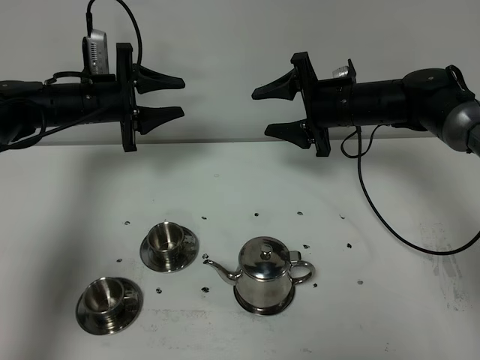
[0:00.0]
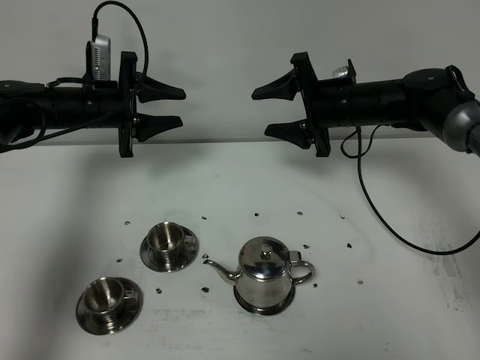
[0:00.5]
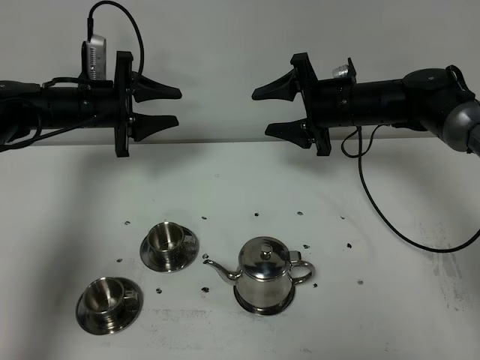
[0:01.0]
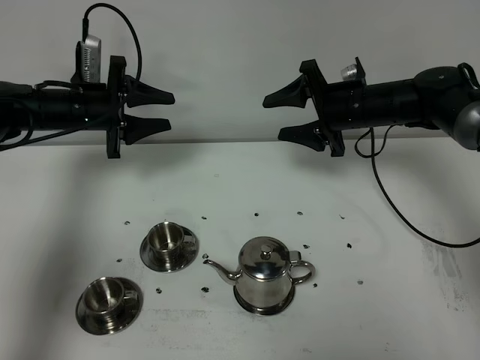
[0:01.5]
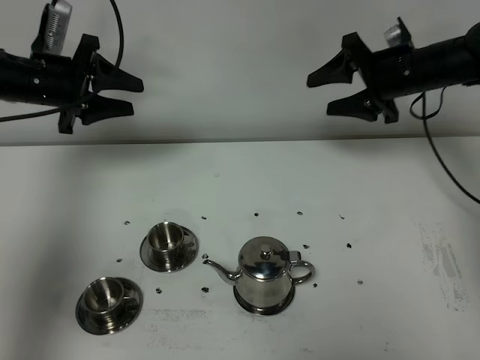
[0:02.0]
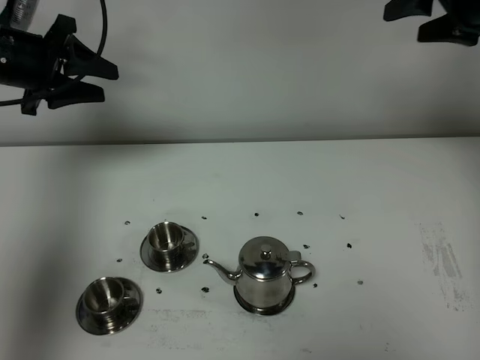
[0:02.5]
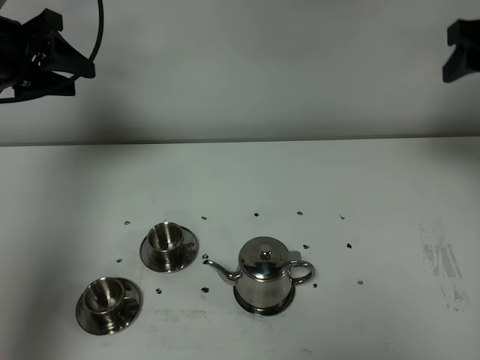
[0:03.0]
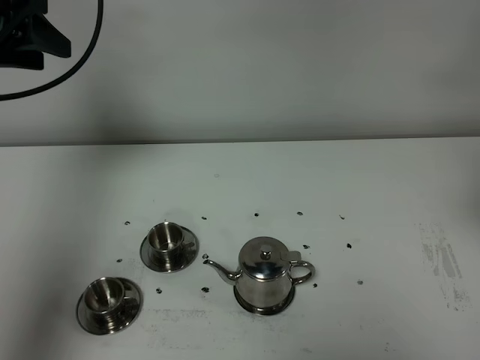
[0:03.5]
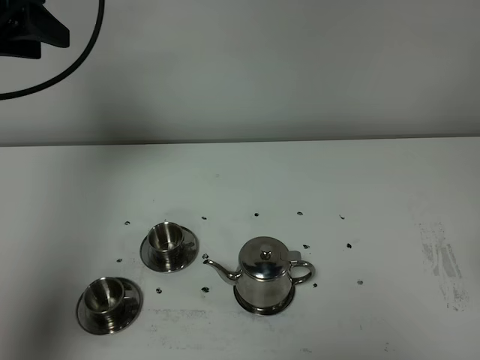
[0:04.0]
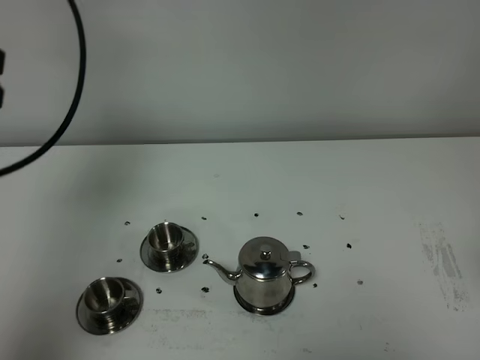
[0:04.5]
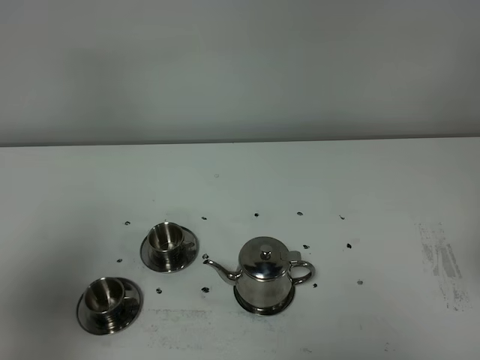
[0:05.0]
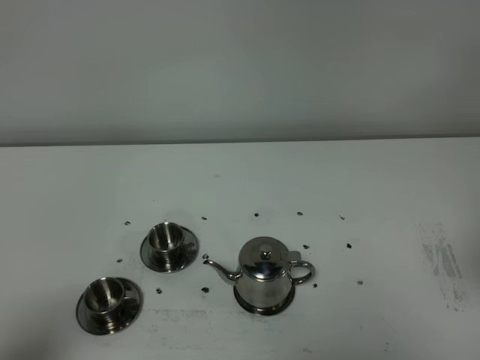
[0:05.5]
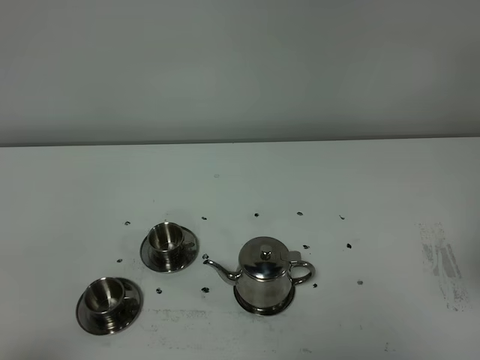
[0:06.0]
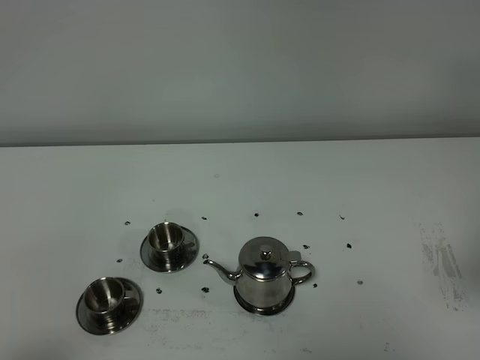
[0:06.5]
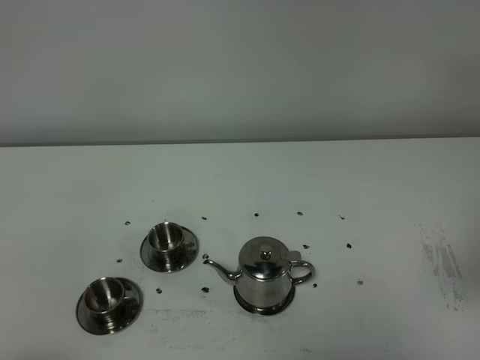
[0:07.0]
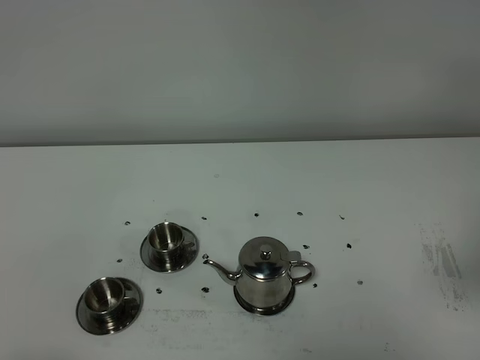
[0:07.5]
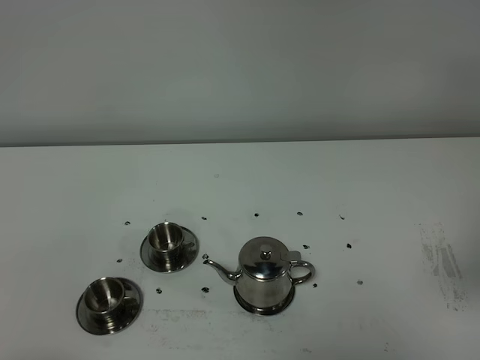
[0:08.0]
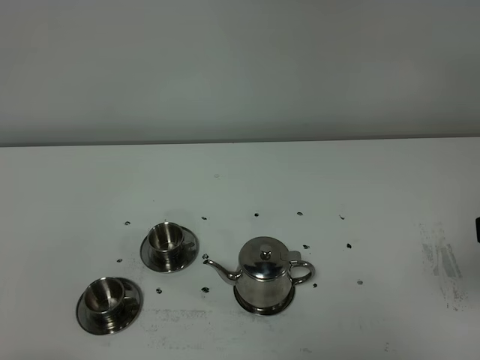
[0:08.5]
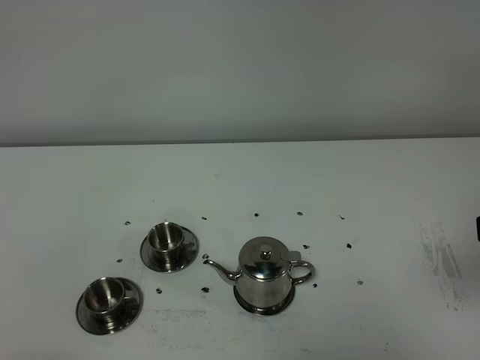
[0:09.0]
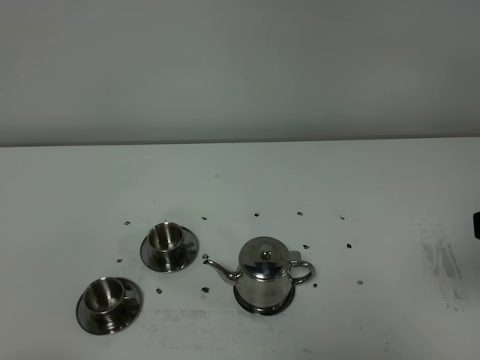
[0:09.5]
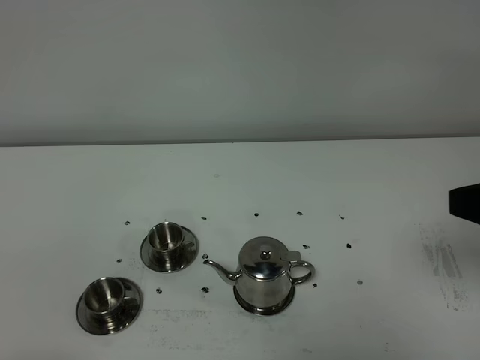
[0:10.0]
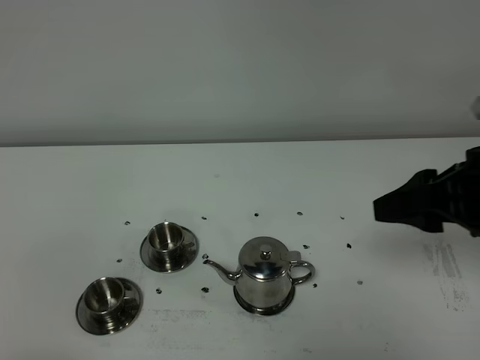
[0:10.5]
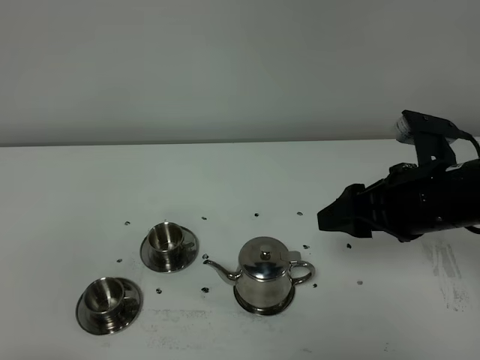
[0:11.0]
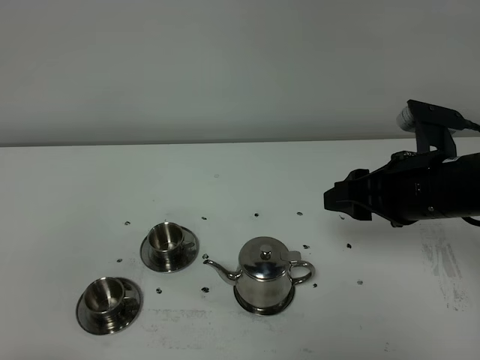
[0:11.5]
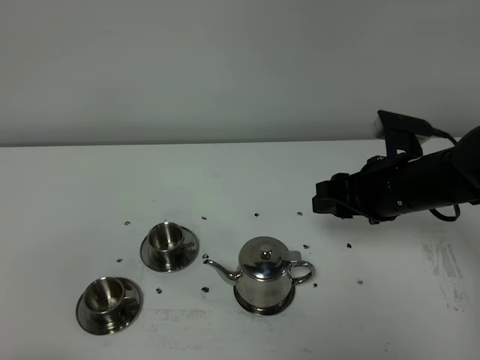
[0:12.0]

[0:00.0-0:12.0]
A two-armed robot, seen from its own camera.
Task of the whole recording: grasp the stainless steel teapot and pour the tea into the two stainless steel teacups one by one, put the stainless steel teapot back in its original place.
0:00.0 to 0:02.0: The right gripper goes approximately 10 cm to the right and upward; the left gripper goes about 10 cm upward and to the left.
0:02.0 to 0:04.0: The left gripper shifts roughly 20 cm upward and backward. Meanwhile the right gripper travels backward by roughly 35 cm.
0:04.0 to 0:06.0: The left gripper travels backward and downward by roughly 40 cm.
0:10.0 to 0:12.0: The right gripper heads forward, downward and to the left, covering approximately 25 cm.

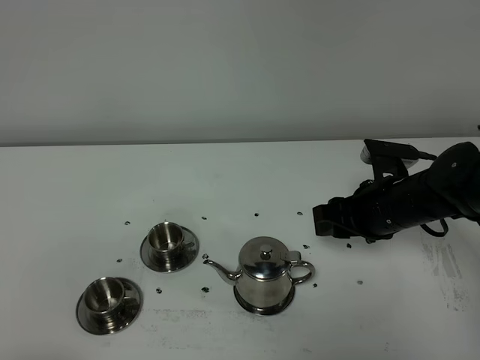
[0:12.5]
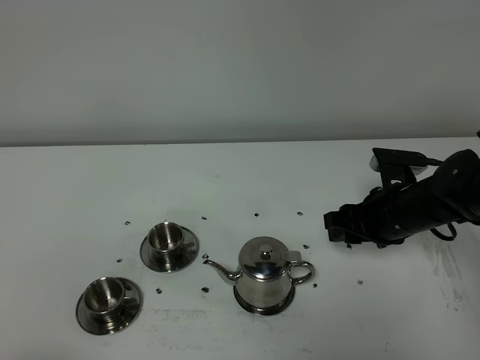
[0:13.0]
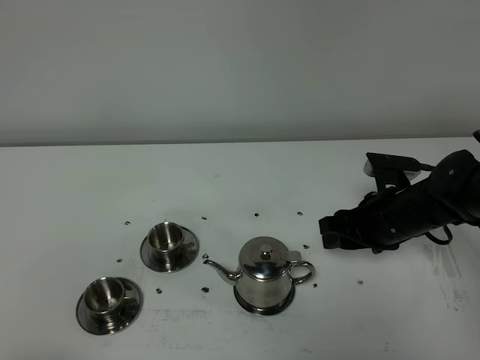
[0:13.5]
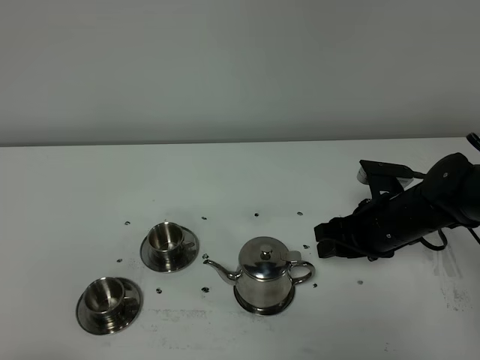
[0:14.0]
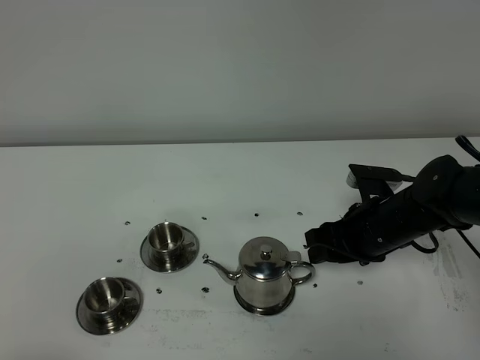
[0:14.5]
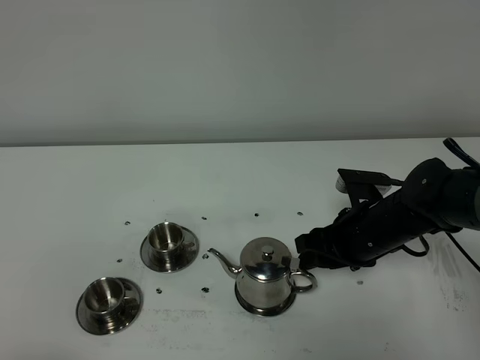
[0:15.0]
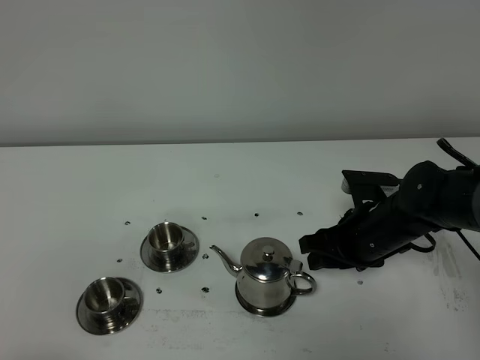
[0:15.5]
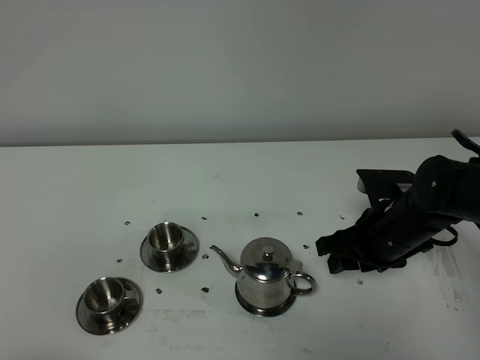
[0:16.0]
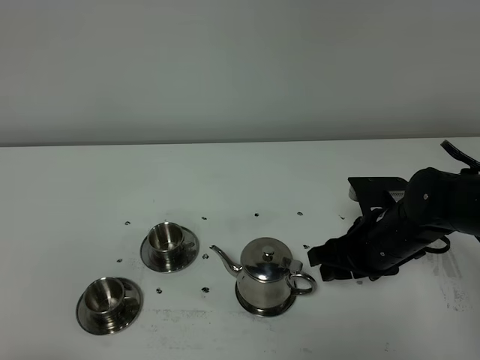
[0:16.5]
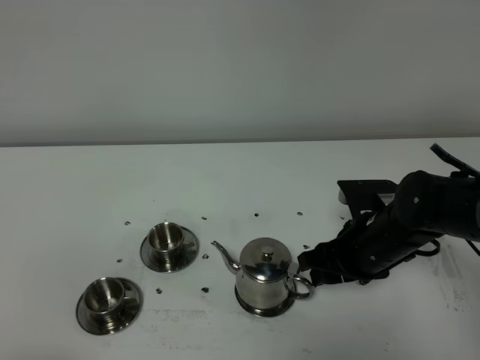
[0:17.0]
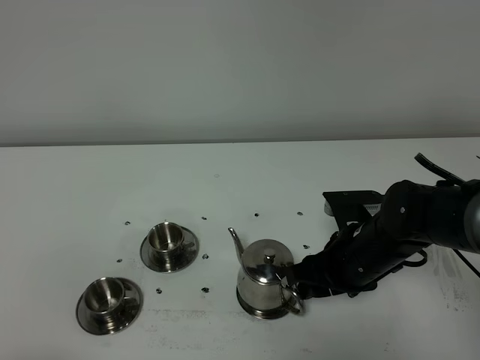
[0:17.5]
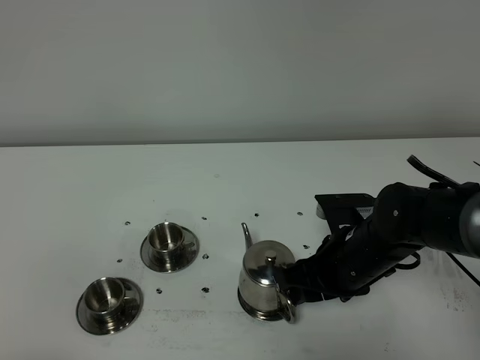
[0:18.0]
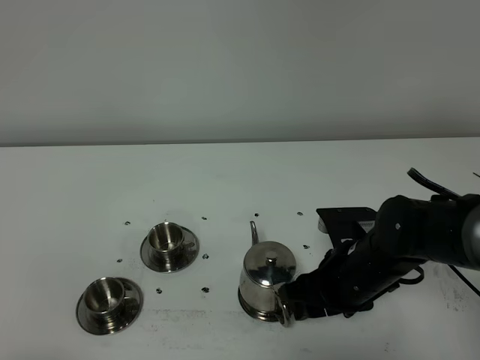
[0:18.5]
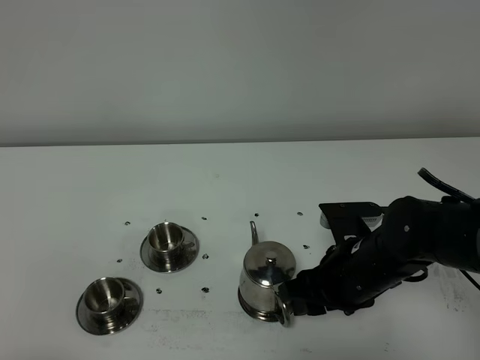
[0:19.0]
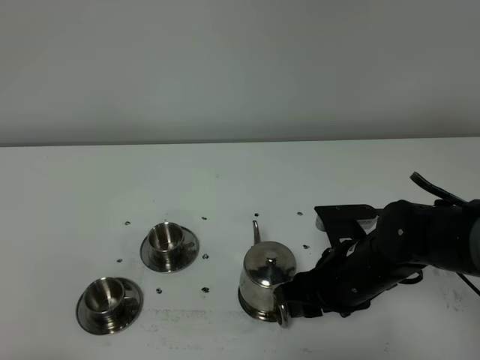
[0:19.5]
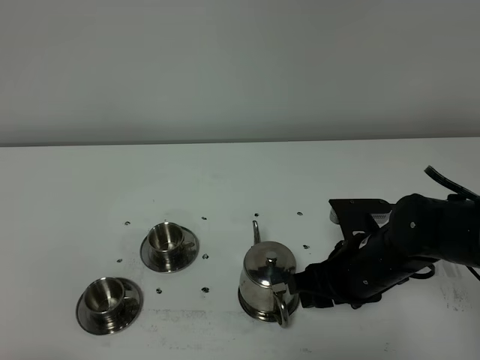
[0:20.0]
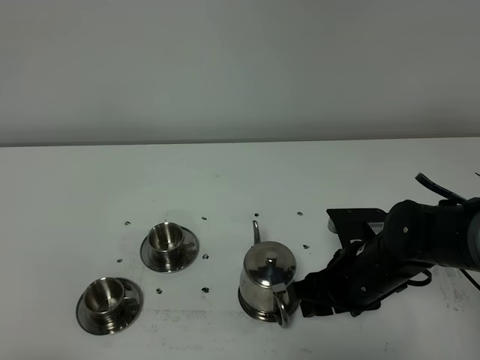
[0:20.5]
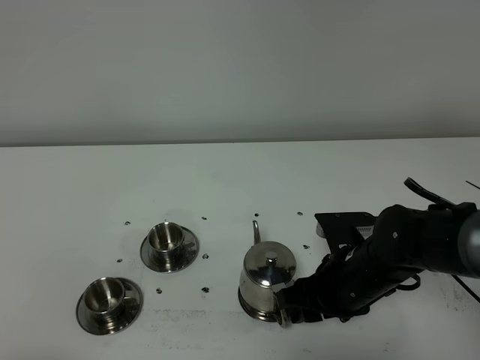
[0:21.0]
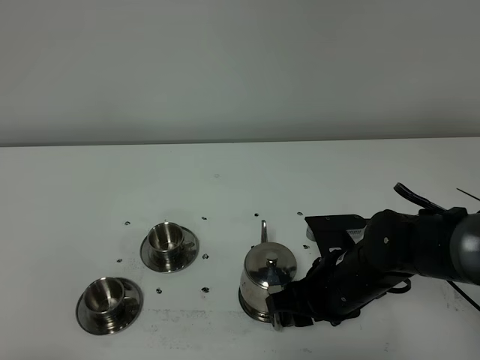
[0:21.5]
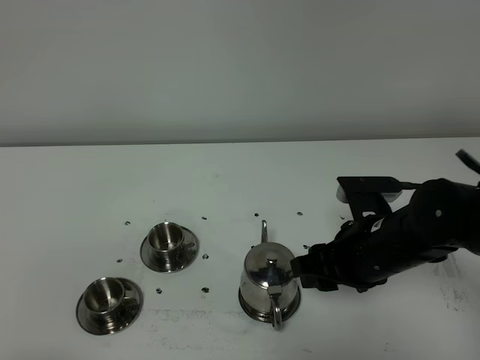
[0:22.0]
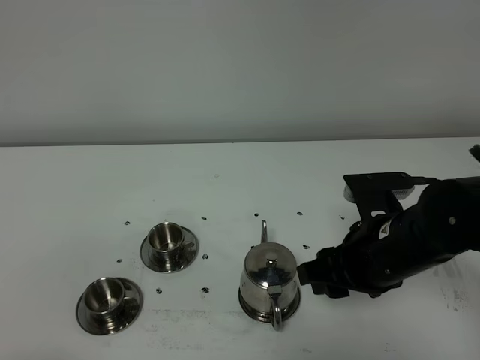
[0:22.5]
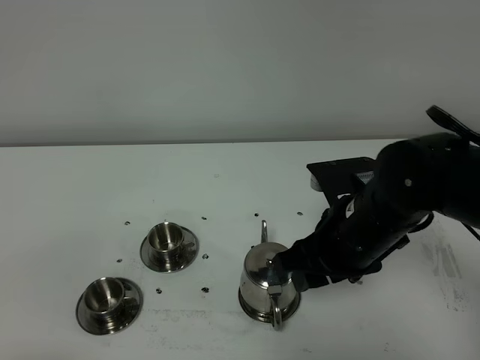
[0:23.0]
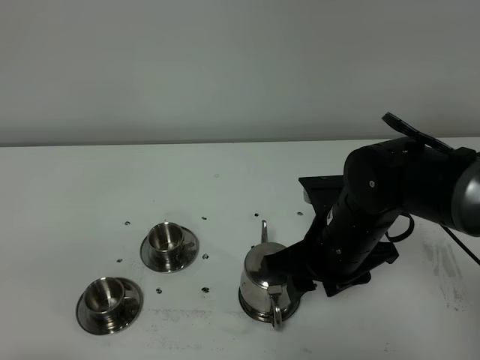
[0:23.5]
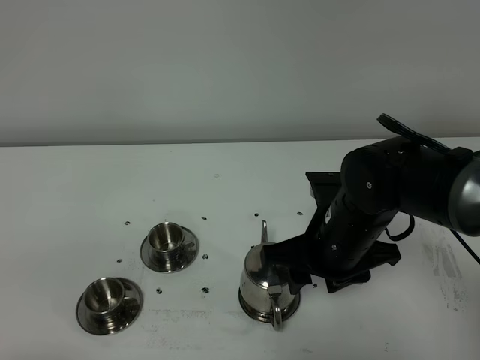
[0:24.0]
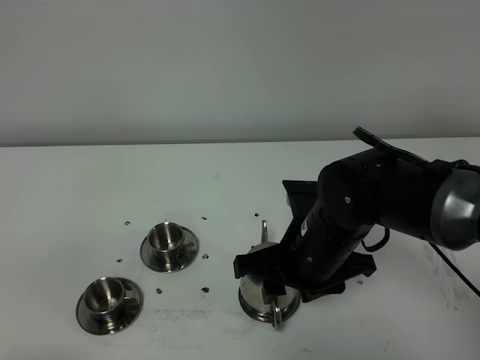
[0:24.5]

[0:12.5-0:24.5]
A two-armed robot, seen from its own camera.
Task of the whole recording: grasp the stainless steel teapot and pour the tea into the two stainless steel teacups one by one, put the stainless steel teapot back in its original place.
0:12.5 to 0:16.5: There are only small adjustments of the grippers.
0:16.5 to 0:18.5: The right gripper ends up roughly 5 cm from where it was.
0:18.5 to 0:20.5: The grippers make only small movements.
0:20.5 to 0:22.5: The right gripper goes about 10 cm upward.
0:22.5 to 0:24.5: The right gripper is displaced to the left by roughly 5 cm.

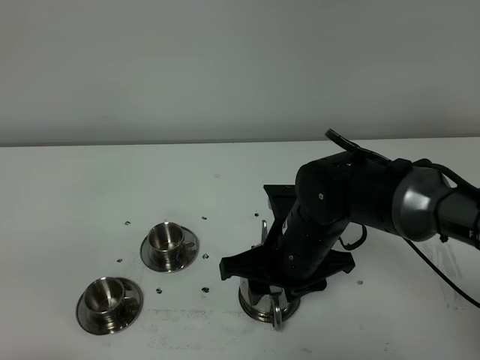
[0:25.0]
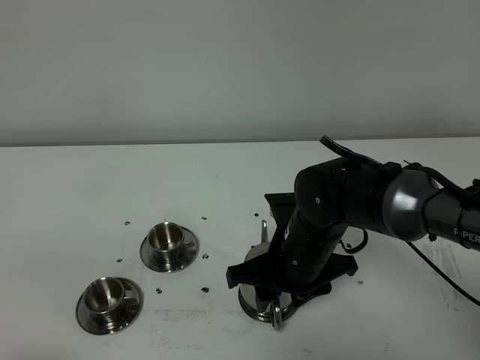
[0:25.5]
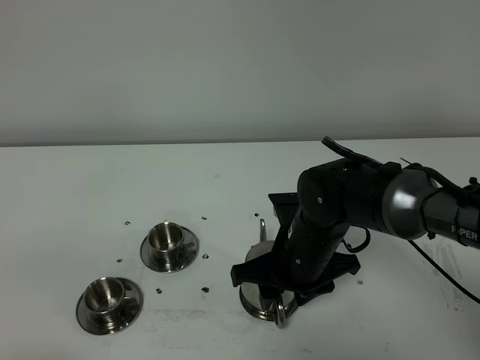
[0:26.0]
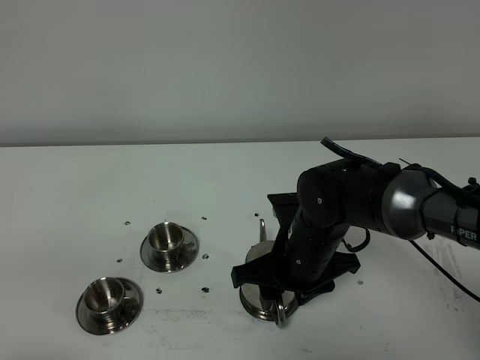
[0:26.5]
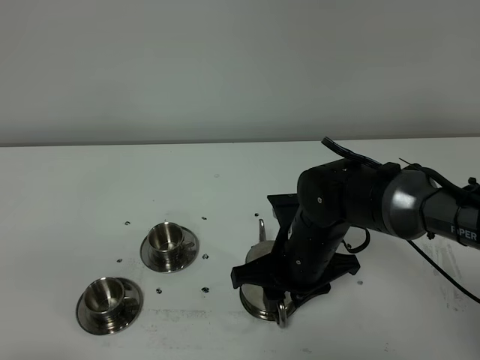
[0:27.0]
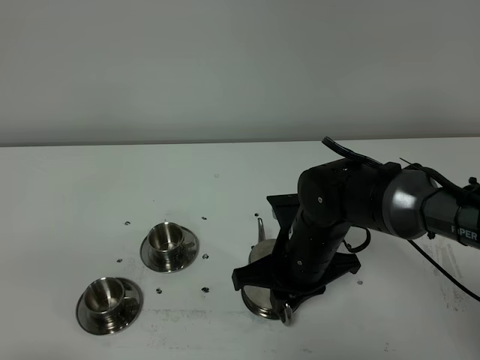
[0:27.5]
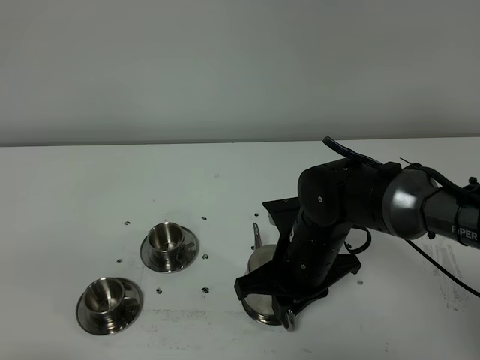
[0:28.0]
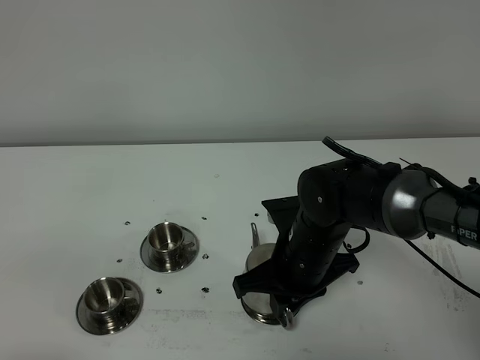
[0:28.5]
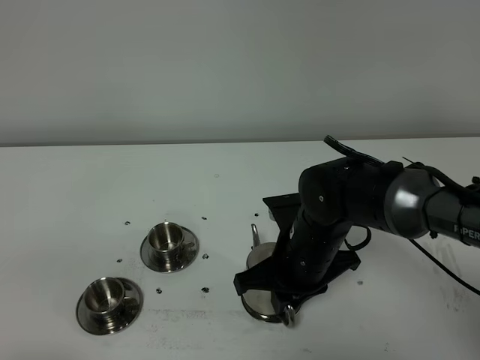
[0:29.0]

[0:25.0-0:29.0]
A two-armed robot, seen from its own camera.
Task of the whole recording: grasp the stainless steel teapot and pour the tea into the two stainless steel teacups one by one, put the stainless steel teapot back in its original place.
0:25.0 to 0:27.0: The grippers stay close to where they were, moving slightly.
0:27.0 to 0:29.0: The right gripper closes up.
